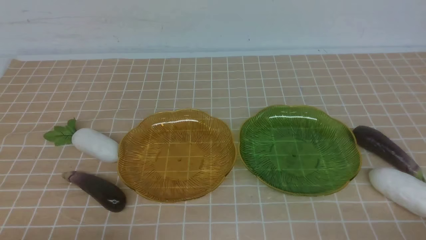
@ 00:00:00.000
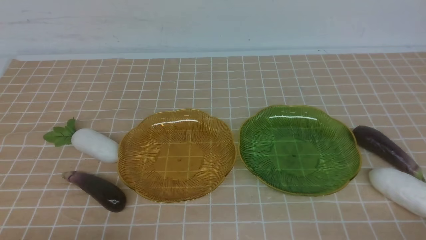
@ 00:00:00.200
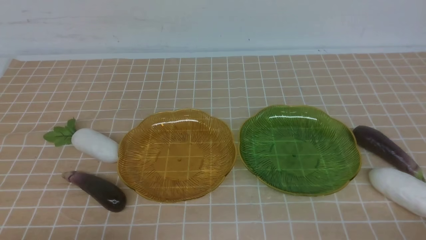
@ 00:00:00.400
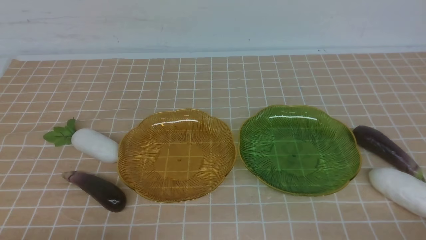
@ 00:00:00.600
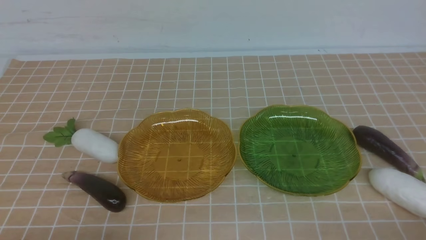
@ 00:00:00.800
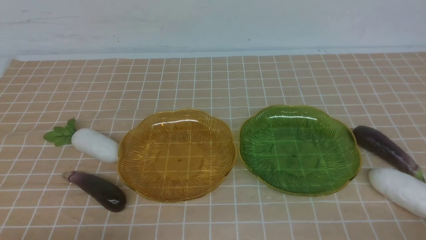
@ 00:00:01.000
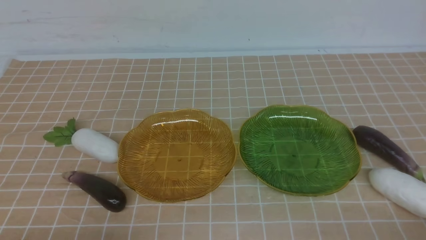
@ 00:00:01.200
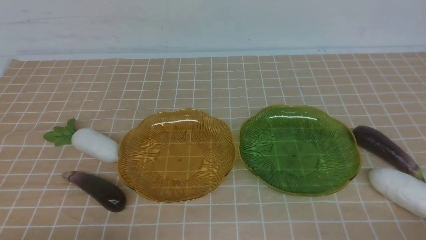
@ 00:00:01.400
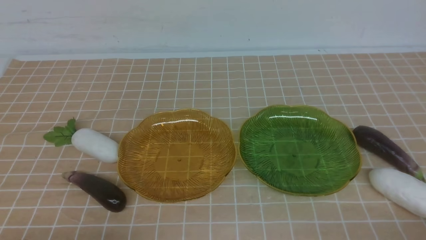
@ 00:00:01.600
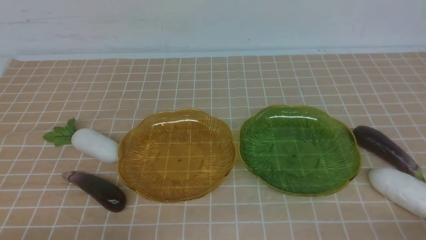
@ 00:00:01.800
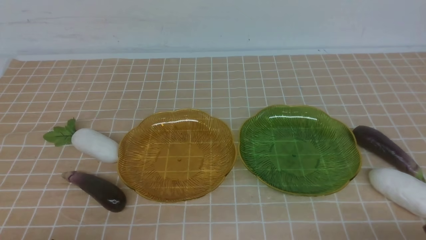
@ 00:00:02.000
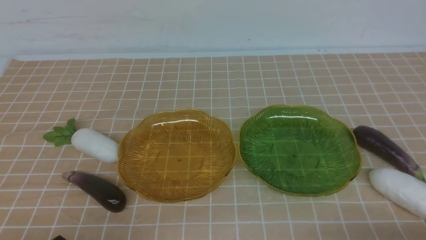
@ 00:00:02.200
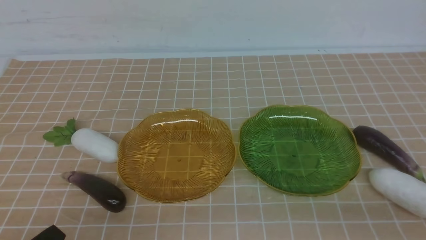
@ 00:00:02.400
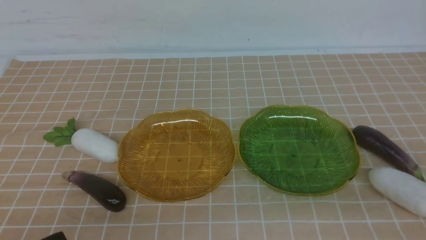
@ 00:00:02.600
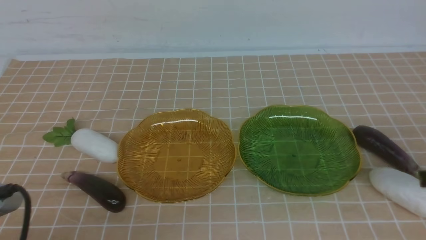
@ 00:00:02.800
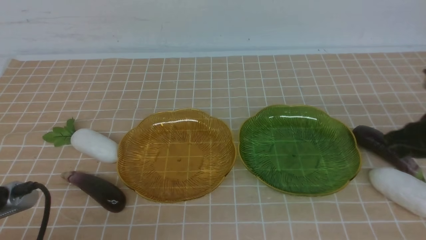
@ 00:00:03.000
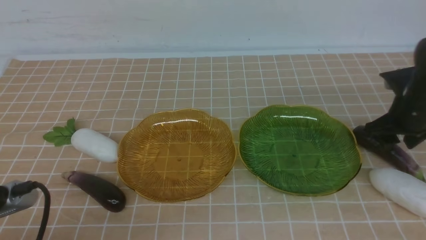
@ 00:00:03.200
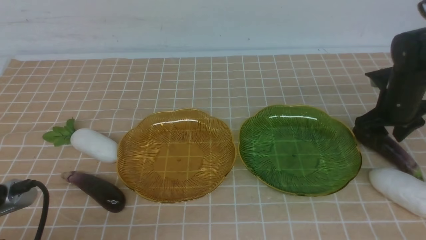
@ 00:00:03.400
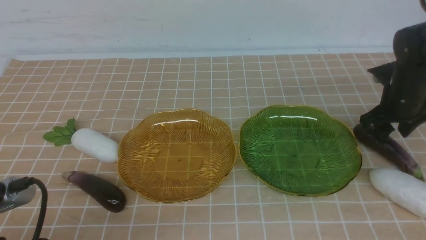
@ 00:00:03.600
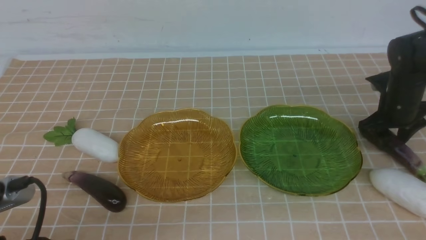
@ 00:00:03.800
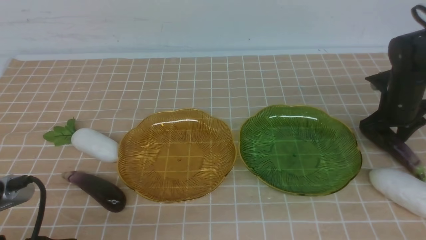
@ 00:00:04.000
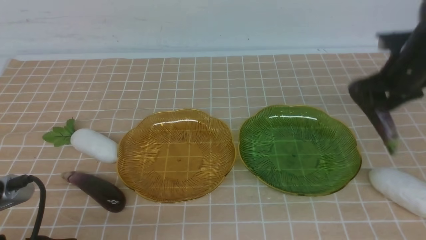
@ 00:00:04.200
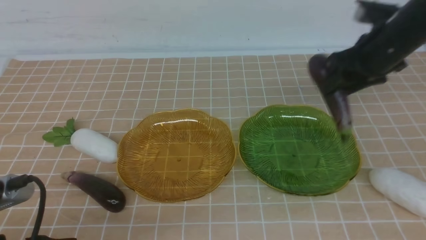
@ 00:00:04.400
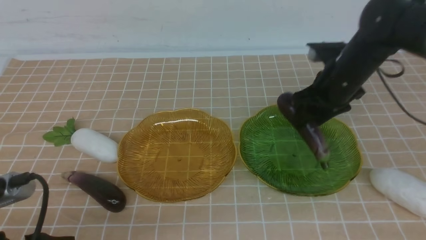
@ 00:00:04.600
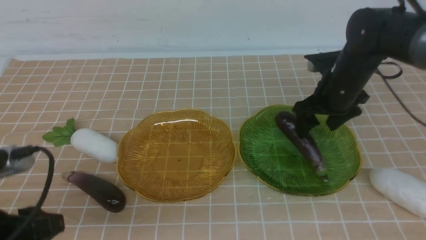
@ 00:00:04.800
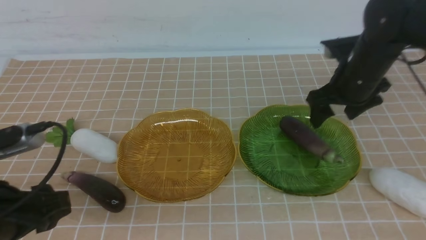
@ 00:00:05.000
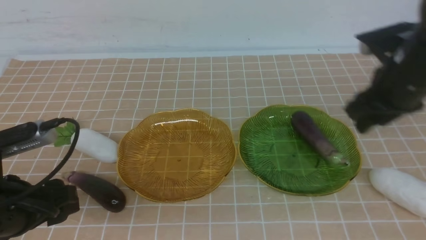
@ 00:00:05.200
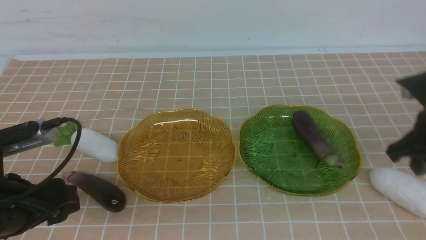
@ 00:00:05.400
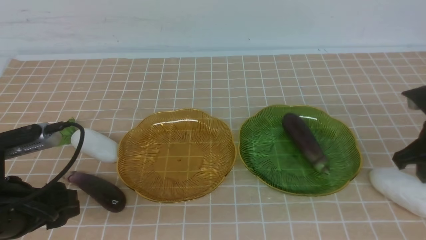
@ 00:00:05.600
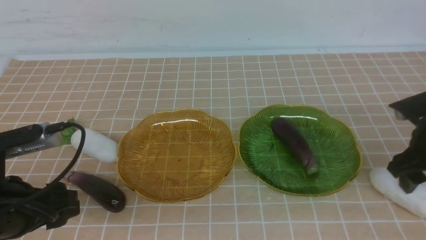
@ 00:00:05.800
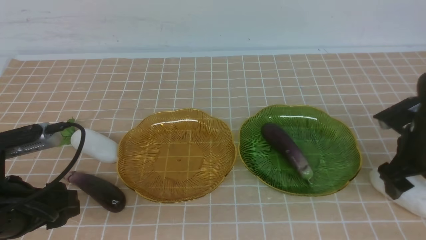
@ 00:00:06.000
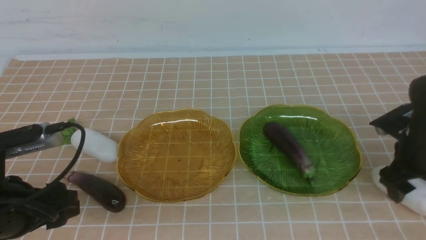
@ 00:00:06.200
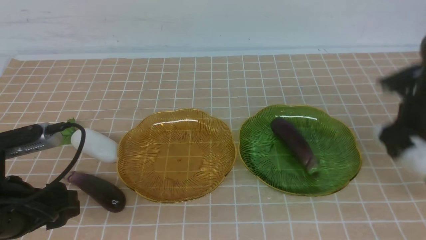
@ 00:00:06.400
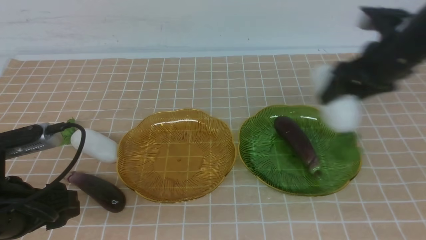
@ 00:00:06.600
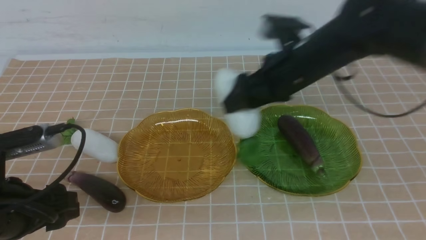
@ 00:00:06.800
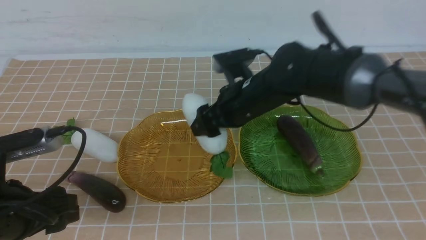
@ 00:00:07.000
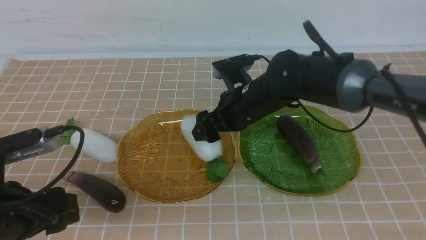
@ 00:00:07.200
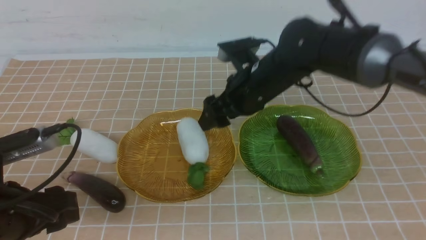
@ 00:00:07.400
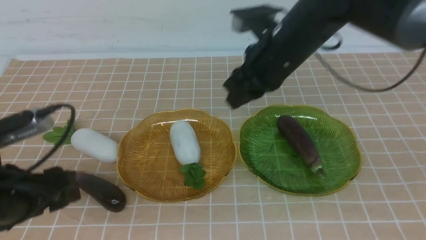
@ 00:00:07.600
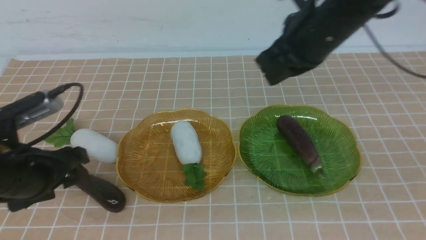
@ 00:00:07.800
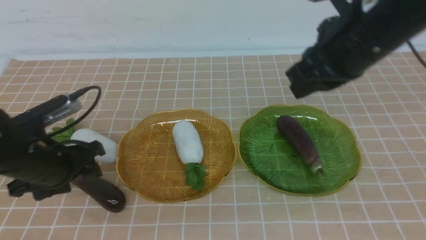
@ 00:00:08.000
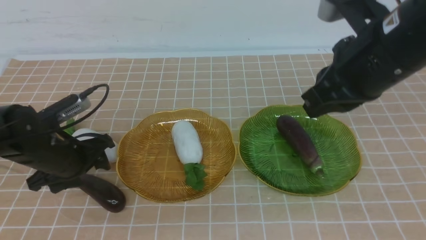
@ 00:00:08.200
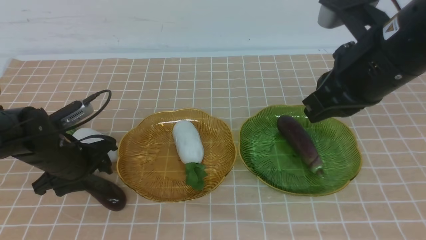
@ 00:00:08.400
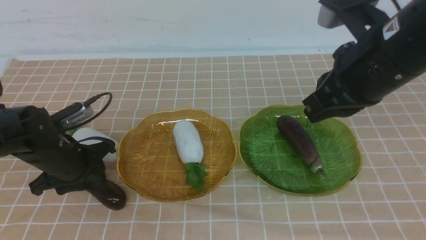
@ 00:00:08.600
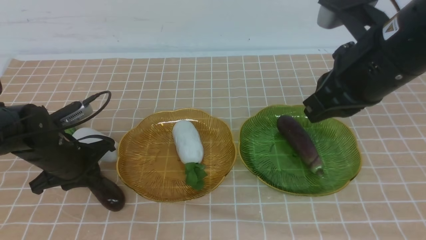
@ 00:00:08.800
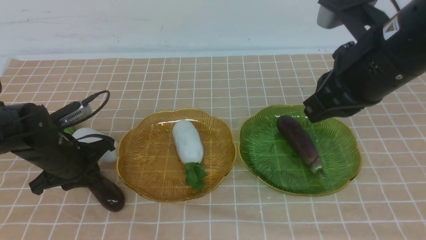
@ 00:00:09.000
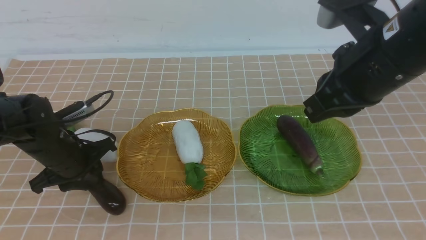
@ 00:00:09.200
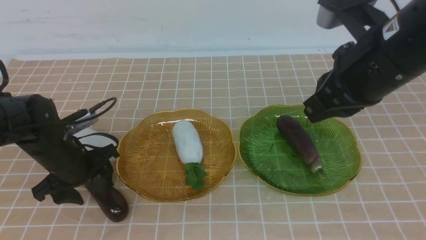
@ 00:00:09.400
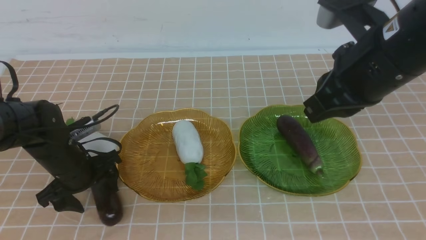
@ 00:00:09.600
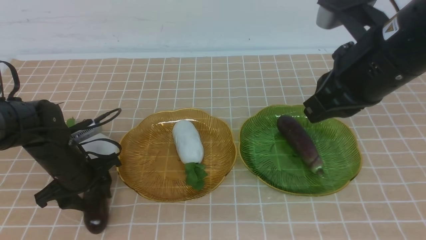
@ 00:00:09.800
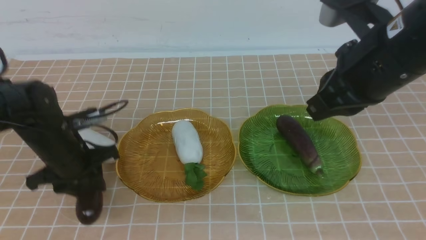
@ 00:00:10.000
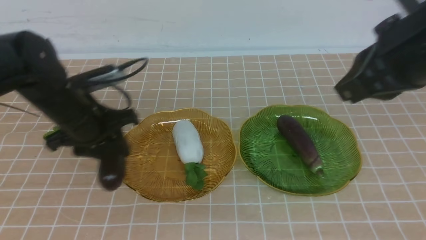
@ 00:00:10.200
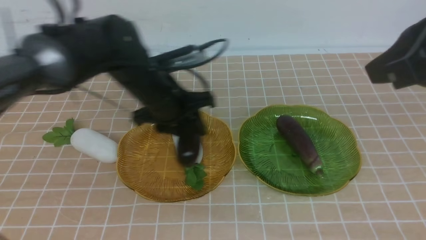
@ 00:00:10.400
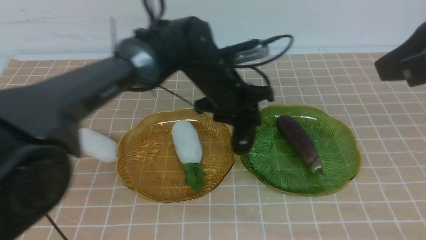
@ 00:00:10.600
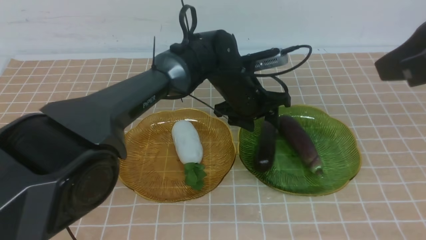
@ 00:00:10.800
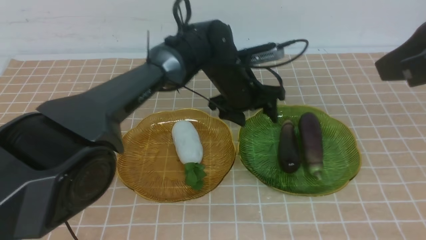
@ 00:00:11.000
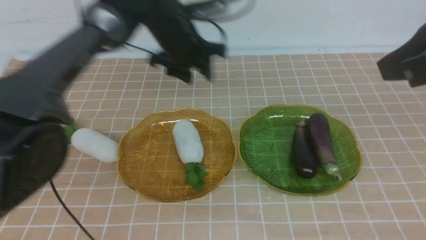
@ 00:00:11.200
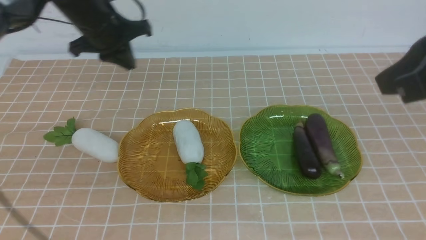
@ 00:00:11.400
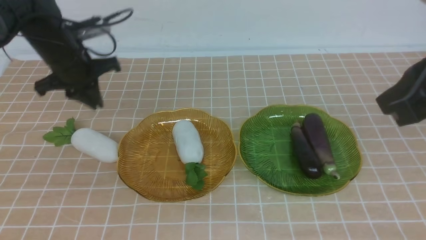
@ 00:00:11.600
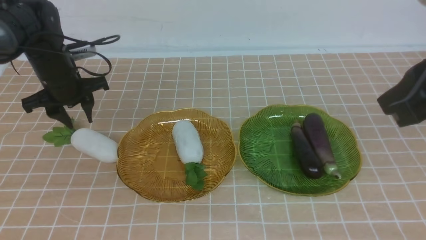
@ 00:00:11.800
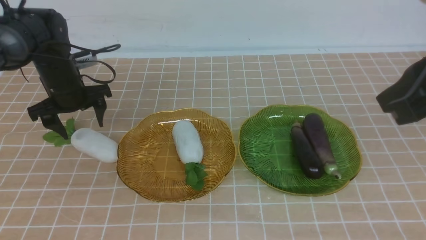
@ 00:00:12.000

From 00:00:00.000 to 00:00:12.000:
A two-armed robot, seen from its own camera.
Step, from 00:00:00.000 to 00:00:04.800: use the right arm to grab an eggplant and put it into the right plate.
Step, from 00:00:05.200 to 00:00:07.400: use the right arm to grab a radish and put it into the left plate.
Step, from 00:00:07.600 to 00:00:11.000: use the left arm to grab an eggplant and put it into the right plate.
From 00:00:00.000 to 00:00:01.600: Both grippers stay about where they are.
From 00:00:01.600 to 00:00:03.000: The right gripper travels forward by roughly 25 cm, and opens up, while the left gripper travels upward by roughly 5 cm.
From 00:00:03.000 to 00:00:04.400: The right gripper heads forward and to the left, covering roughly 10 cm, and reaches roughly 5 cm downward, then returns.
From 00:00:04.400 to 00:00:06.000: The right gripper shifts approximately 10 cm backward, downward and to the right, and opens up. The left gripper heads forward, covering about 5 cm, and opens its fingers.
From 00:00:06.000 to 00:00:07.600: The right gripper goes some 25 cm to the left and upward, and closes.
From 00:00:07.600 to 00:00:09.000: The right gripper heads backward and to the right, covering about 10 cm. Meanwhile the left gripper moves forward and downward, roughly 15 cm, and closes up.
From 00:00:09.000 to 00:00:10.400: The left gripper moves to the right, upward and forward, about 15 cm, and opens, then closes again. Meanwhile the right gripper is displaced upward and backward by roughly 10 cm.
From 00:00:10.400 to 00:00:12.000: The left gripper is displaced to the left, forward and downward by roughly 20 cm, and opens.

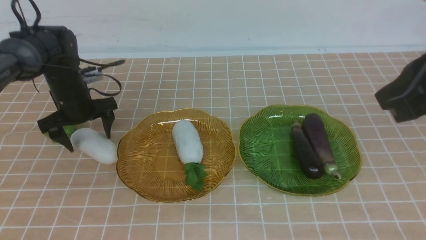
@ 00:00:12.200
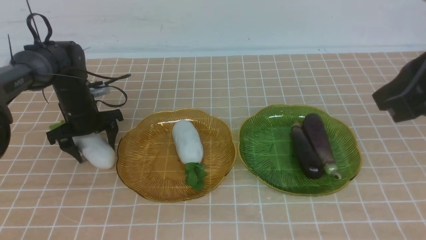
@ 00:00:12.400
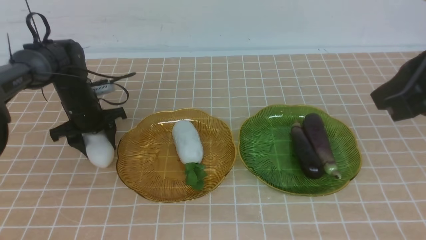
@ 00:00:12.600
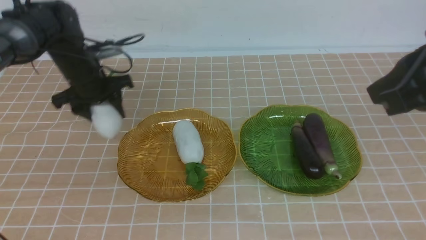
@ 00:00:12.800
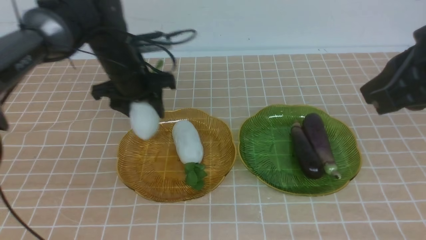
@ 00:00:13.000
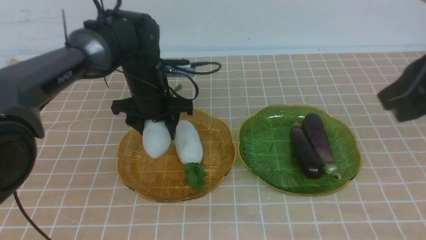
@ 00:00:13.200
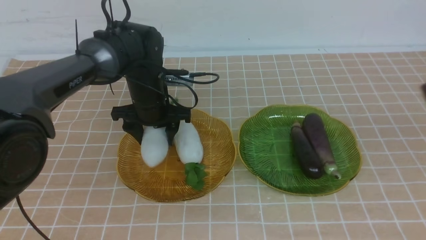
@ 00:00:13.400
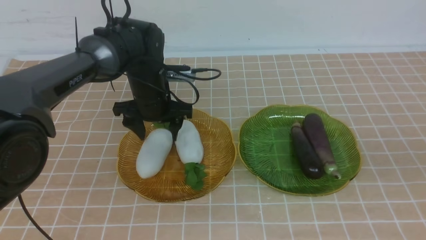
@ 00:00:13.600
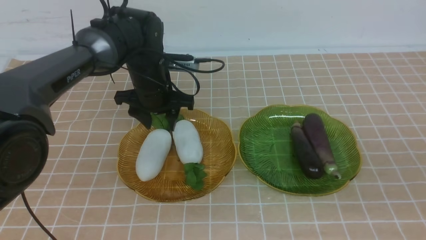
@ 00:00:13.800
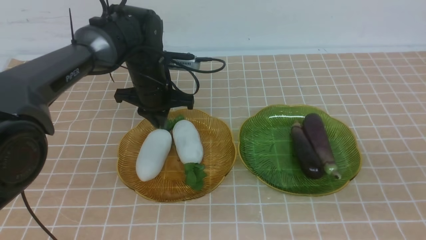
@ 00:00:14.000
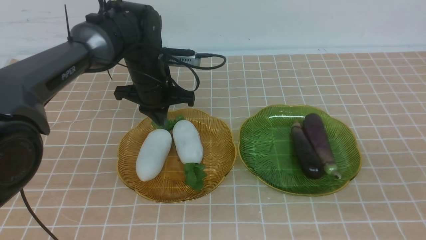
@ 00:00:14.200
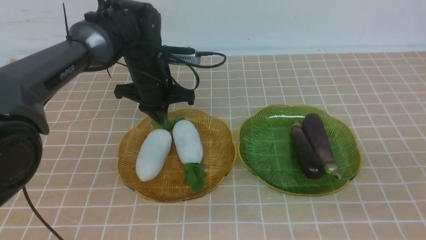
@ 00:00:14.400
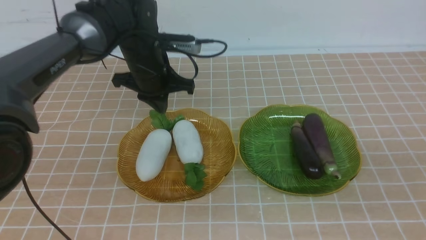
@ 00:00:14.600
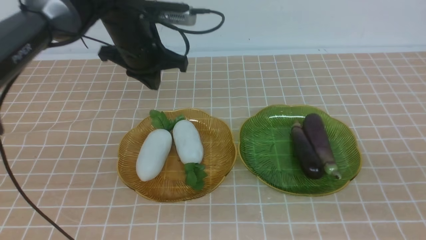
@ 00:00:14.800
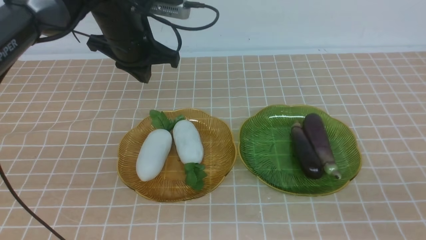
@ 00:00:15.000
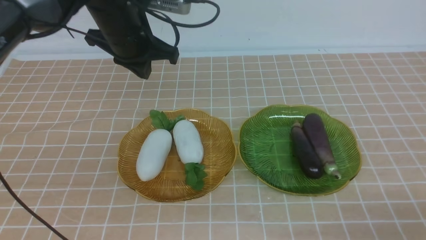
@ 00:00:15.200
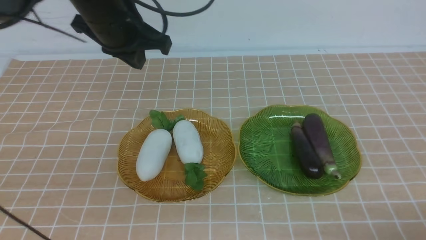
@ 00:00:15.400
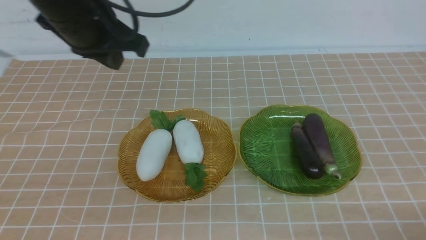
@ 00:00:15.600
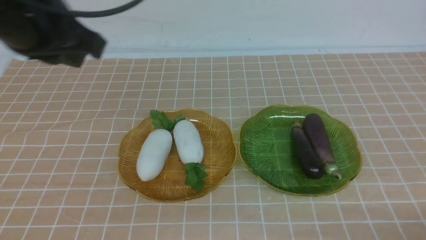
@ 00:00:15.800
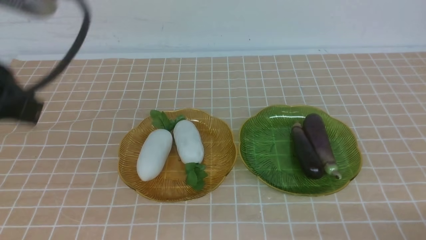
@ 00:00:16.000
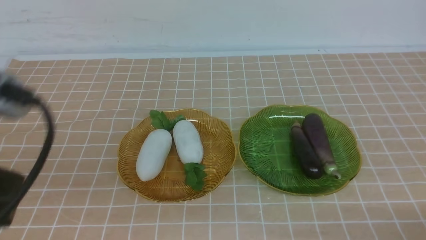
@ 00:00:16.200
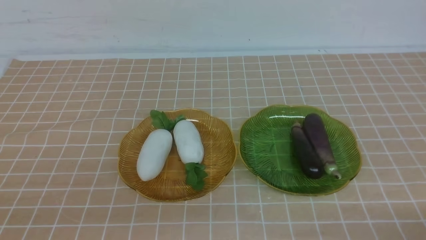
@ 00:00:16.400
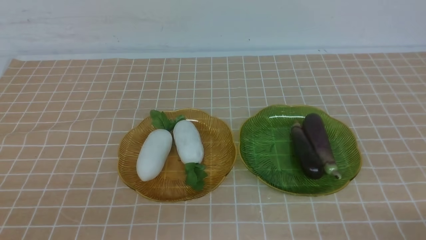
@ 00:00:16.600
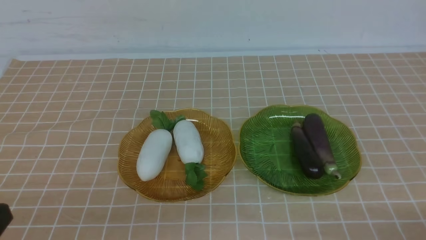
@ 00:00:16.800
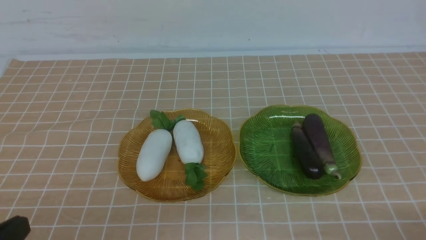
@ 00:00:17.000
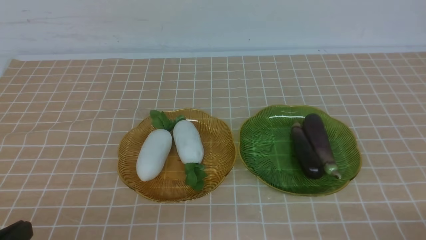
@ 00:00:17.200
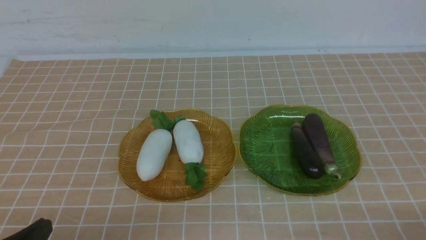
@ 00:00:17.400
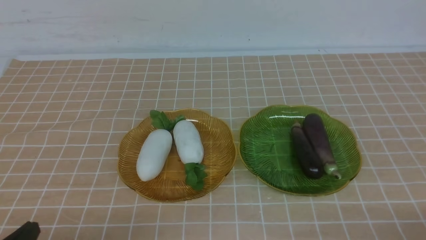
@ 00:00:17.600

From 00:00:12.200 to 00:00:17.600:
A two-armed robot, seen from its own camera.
Step, from 00:00:12.200 to 00:00:13.800: use the left arm to grab a radish and put it into the left plate.
From 00:00:12.200 to 00:00:13.600: The right gripper is displaced backward, downward and to the right by roughly 15 cm. Meanwhile the left gripper moves to the right and upward, roughly 15 cm, and closes.
From 00:00:13.600 to 00:00:15.000: The left gripper heads upward and backward, covering approximately 15 cm, while the right gripper heads downward, covering about 10 cm.
From 00:00:15.000 to 00:00:16.200: The left gripper moves backward, approximately 35 cm.
From 00:00:16.200 to 00:00:17.600: The left gripper moves downward, about 15 cm.
